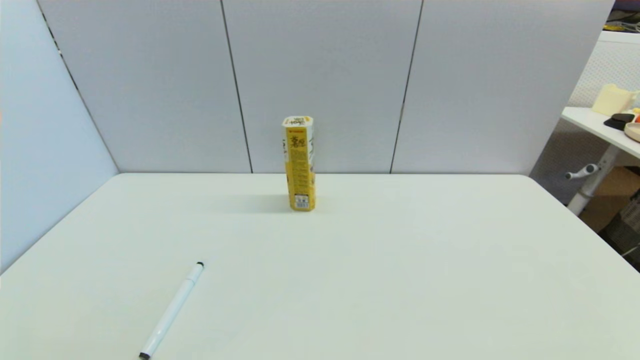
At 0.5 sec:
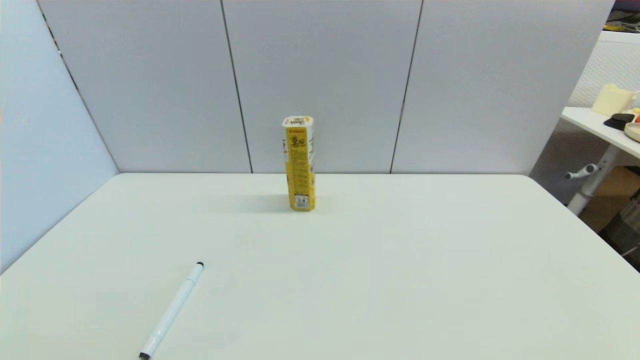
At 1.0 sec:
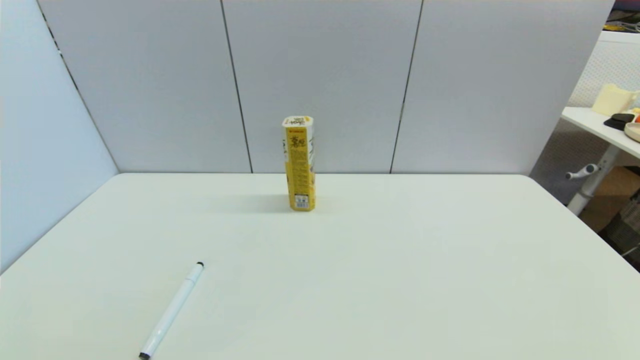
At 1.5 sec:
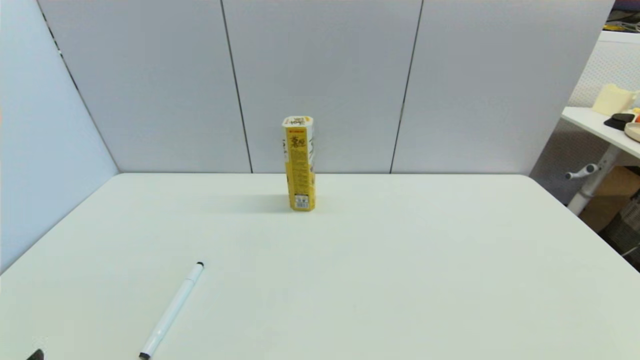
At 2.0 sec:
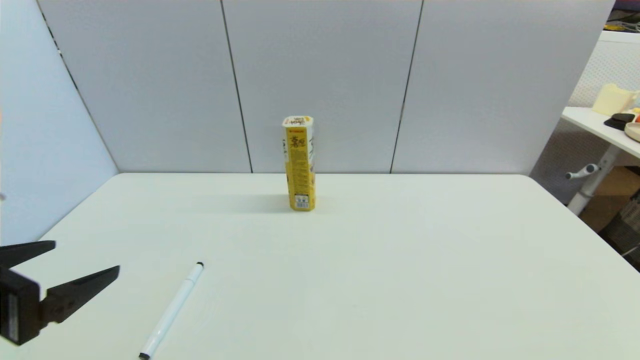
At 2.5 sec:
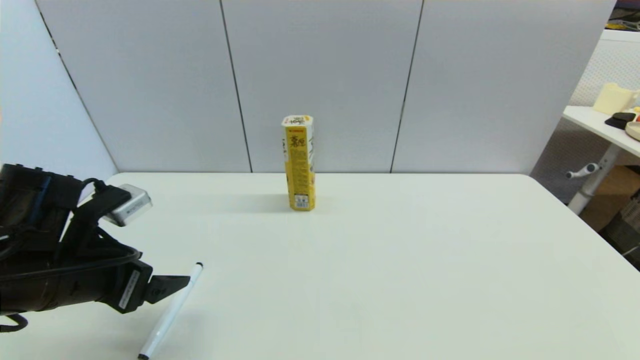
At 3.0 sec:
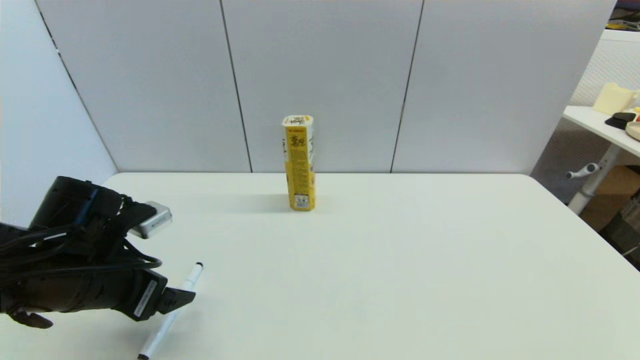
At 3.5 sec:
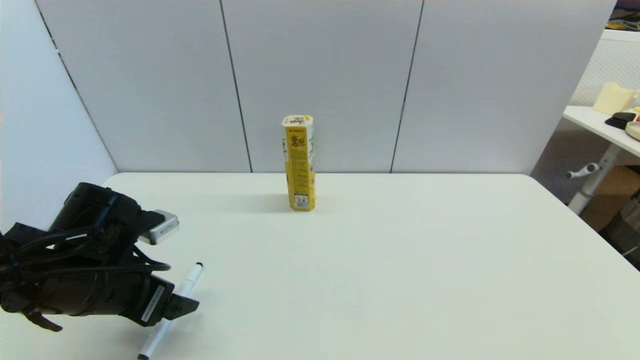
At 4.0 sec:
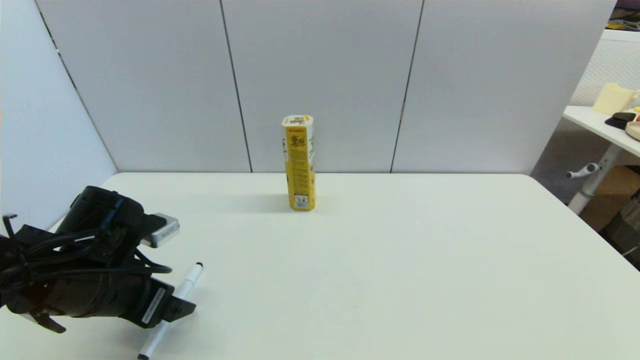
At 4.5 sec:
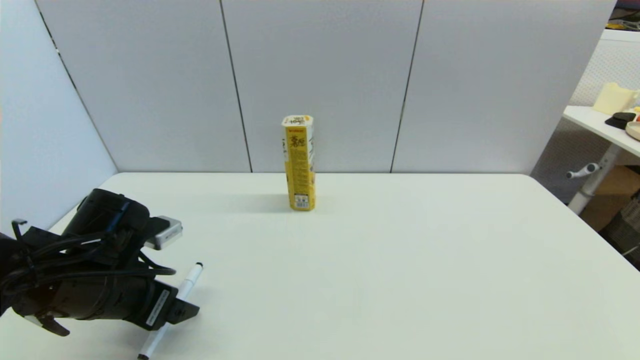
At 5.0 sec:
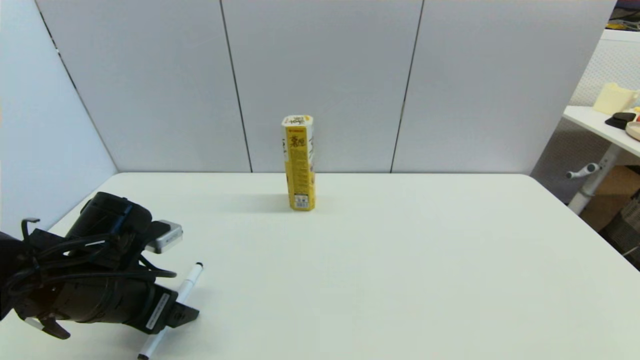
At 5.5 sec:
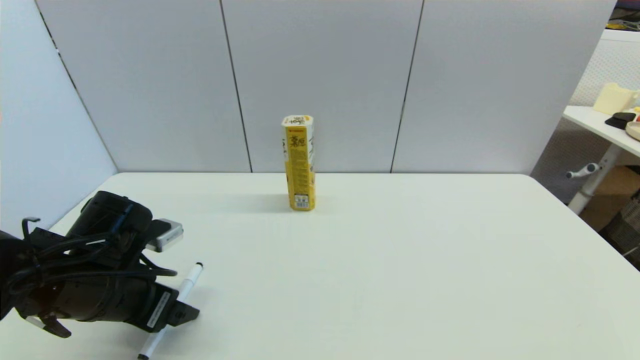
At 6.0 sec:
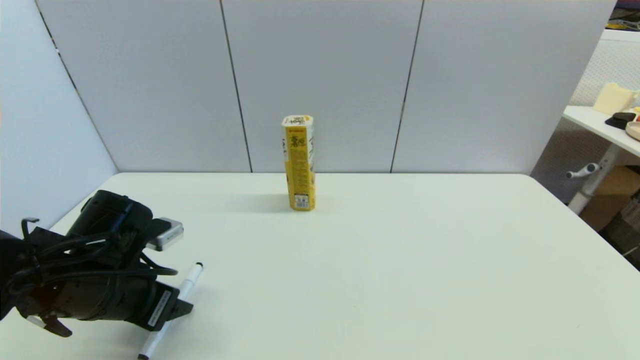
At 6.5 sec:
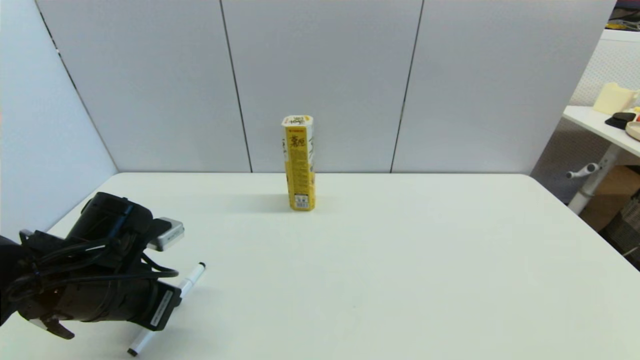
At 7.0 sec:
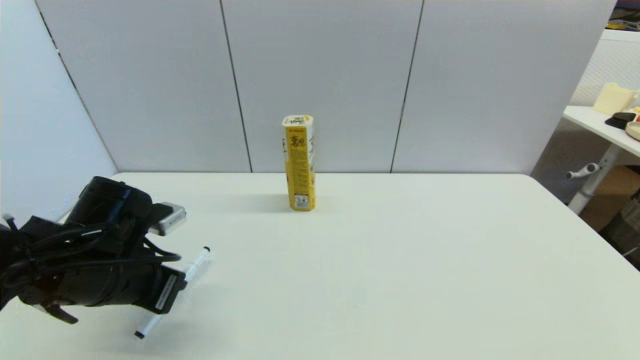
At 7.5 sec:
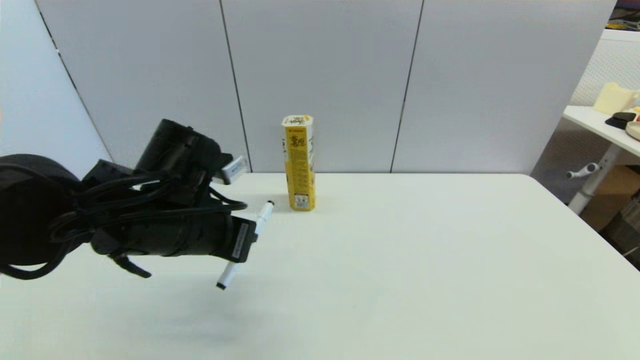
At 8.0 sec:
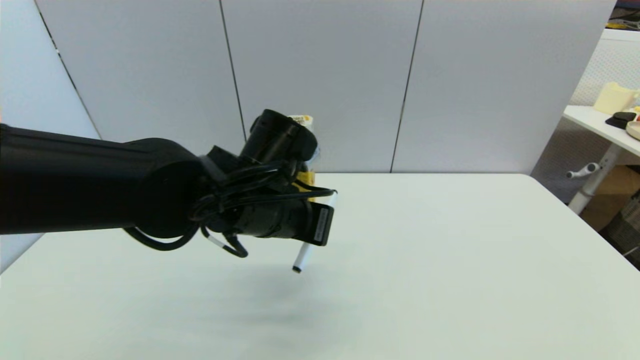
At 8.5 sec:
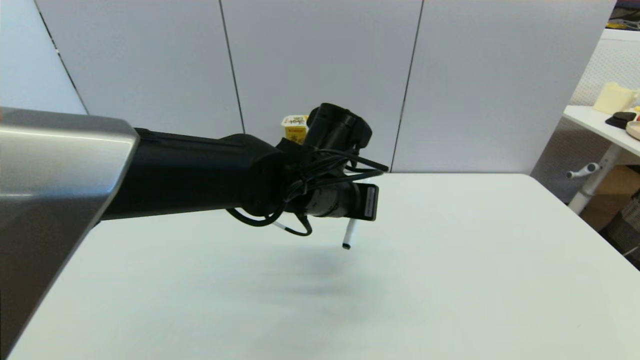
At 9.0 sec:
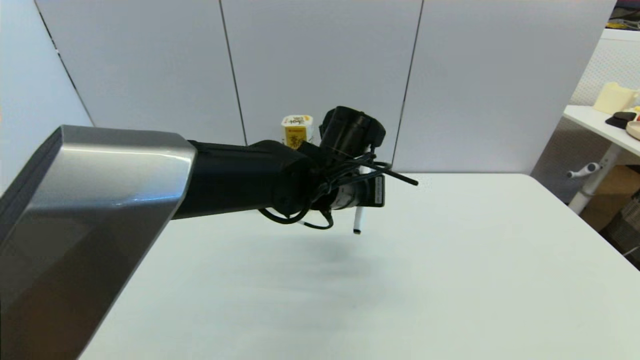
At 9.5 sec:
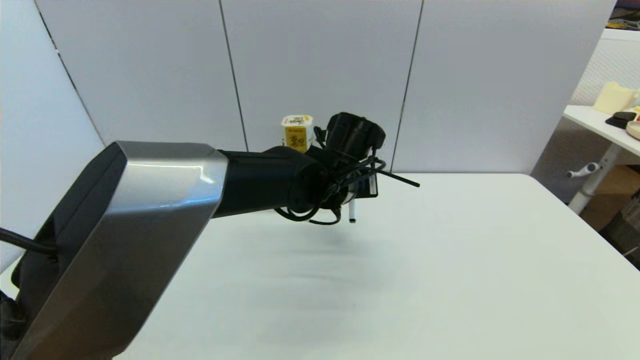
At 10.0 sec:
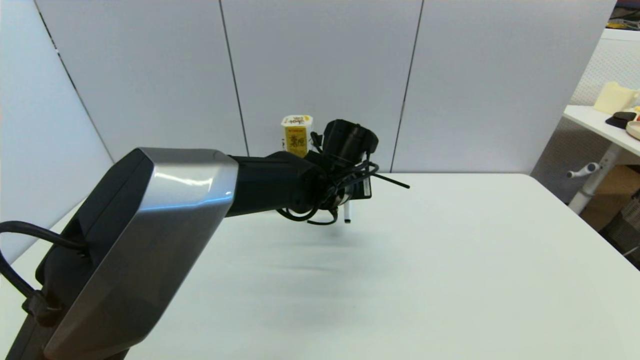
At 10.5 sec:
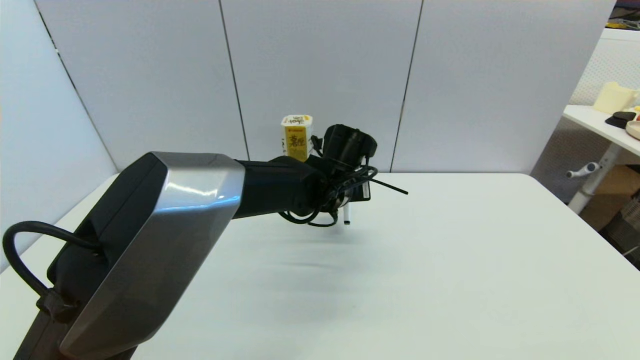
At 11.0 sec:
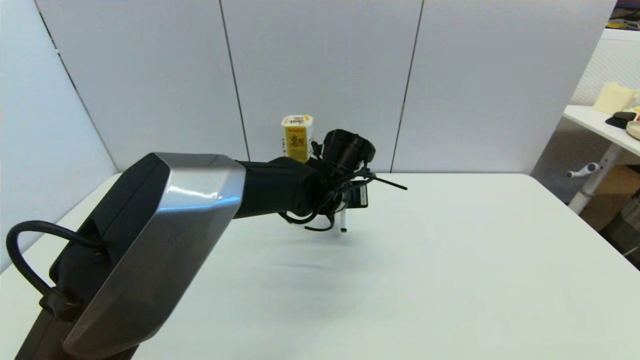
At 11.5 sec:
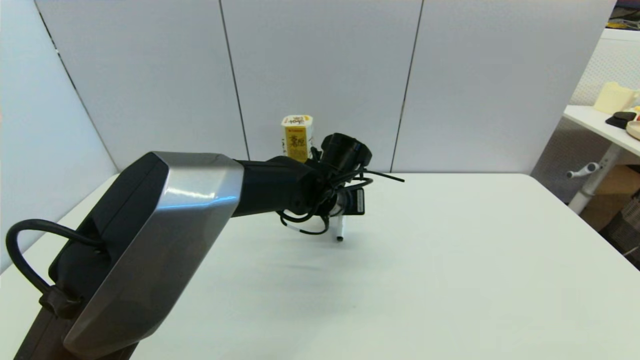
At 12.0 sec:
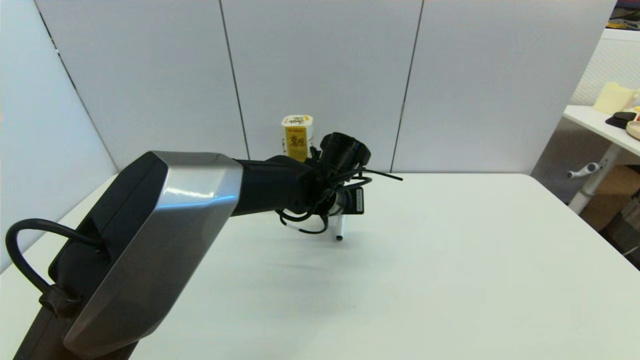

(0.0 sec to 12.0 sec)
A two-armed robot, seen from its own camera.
Task of the whole recording: put the black marker in the designated position.
Step, 2.0 sec - 6.5 sec: Grasp the Marker pen with left gripper.
0.0 sec - 2.0 sec: The left gripper goes about 20 cm upward and forward.
2.0 sec - 4.0 sec: The left gripper goes some 15 cm forward and downward.
4.0 sec - 6.0 sec: The left gripper closes.
6.0 sec - 8.0 sec: The left gripper heads to the right, covering about 20 cm, and closes up.
8.0 sec - 10.0 sec: The left gripper is displaced forward and to the right by roughly 15 cm.
10.0 sec - 12.0 sec: There are only small adjustments of the grippers.

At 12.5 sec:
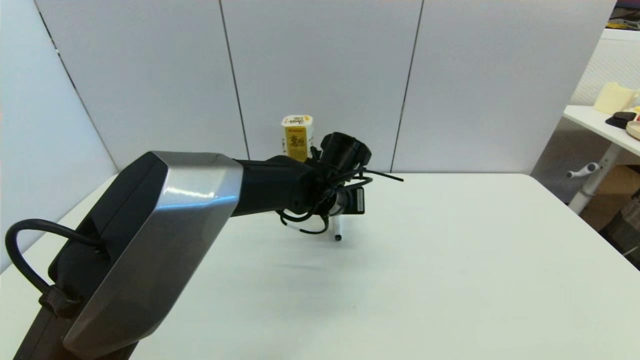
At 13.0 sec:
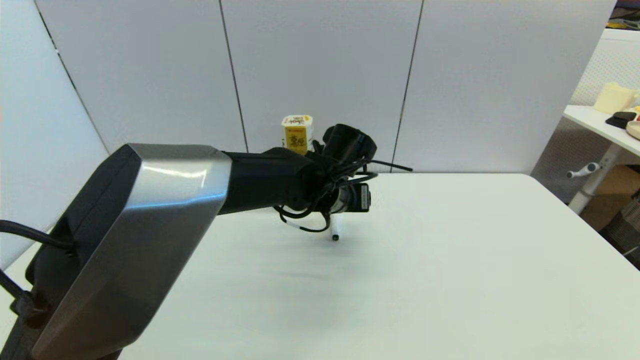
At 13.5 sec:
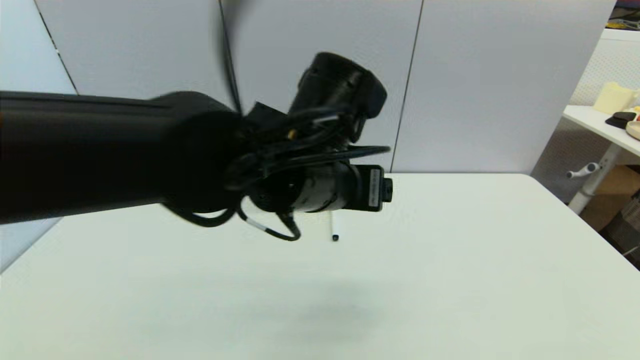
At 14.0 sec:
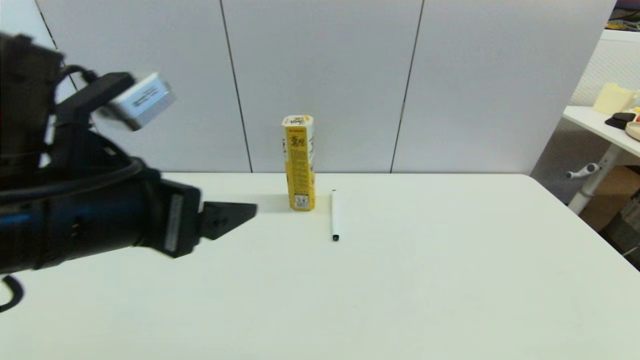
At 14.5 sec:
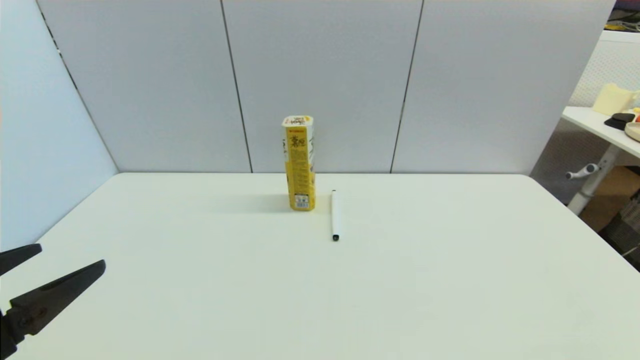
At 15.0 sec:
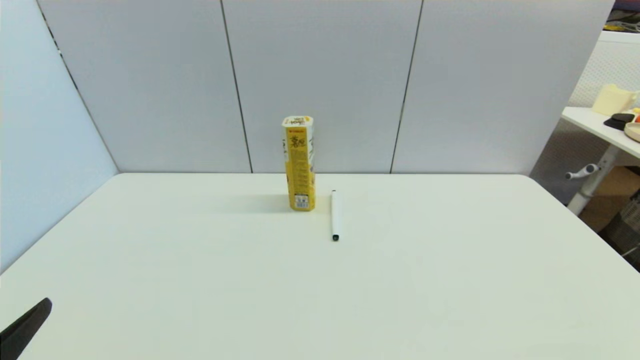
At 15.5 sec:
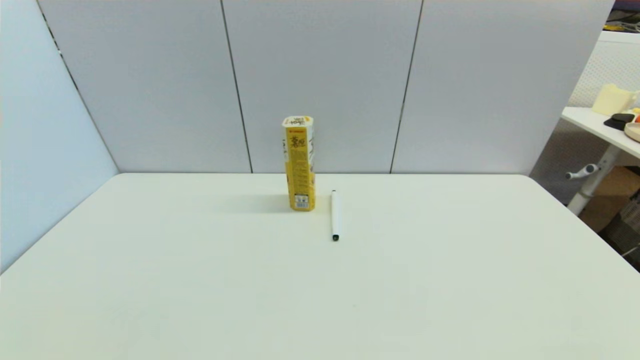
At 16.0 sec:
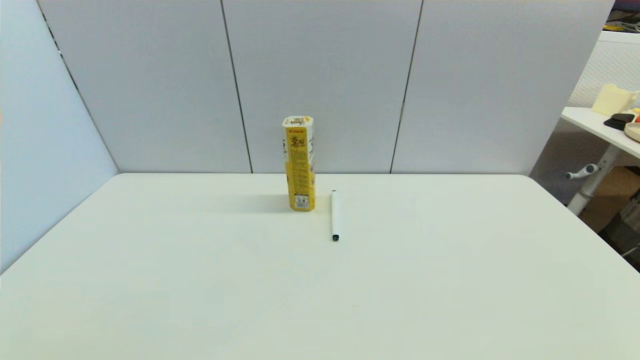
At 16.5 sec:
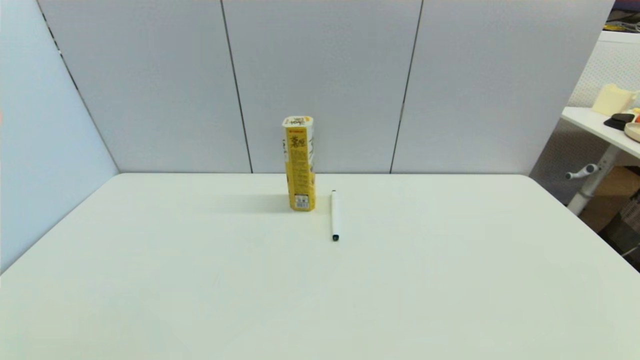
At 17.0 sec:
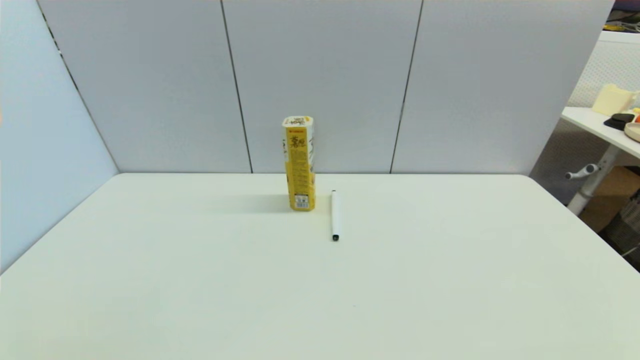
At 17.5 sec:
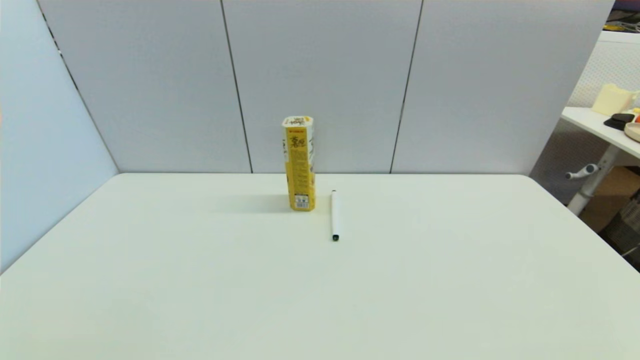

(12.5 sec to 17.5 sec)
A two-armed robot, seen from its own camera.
Task of the whole recording: put the black marker in the designated position.
12.5 sec - 15.0 sec: The left gripper moves backward and to the left, approximately 50 cm, and opens up.
15.0 sec - 17.5 sec: The left gripper travels downward by some 10 cm.

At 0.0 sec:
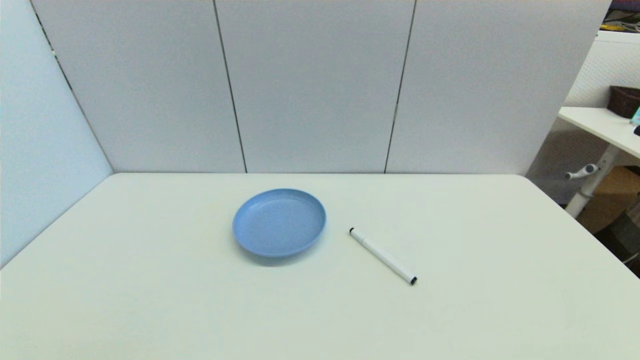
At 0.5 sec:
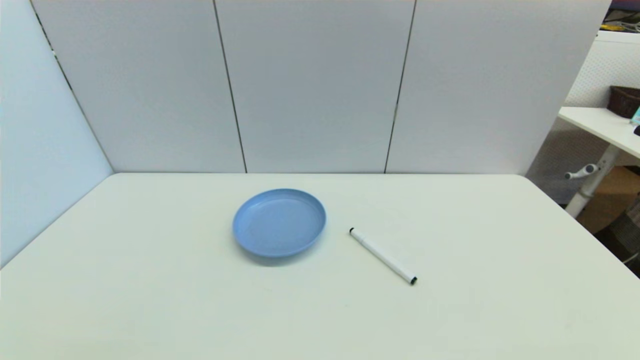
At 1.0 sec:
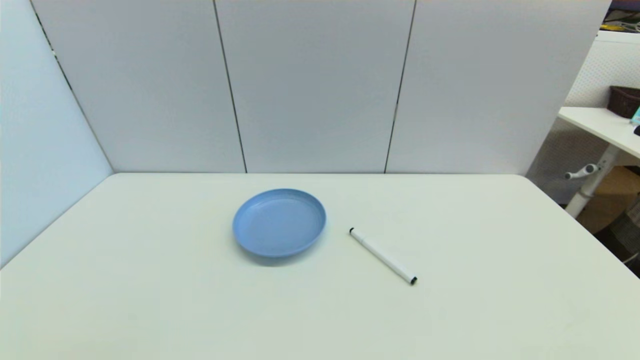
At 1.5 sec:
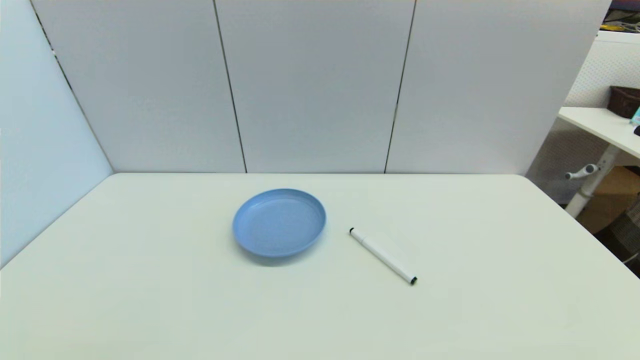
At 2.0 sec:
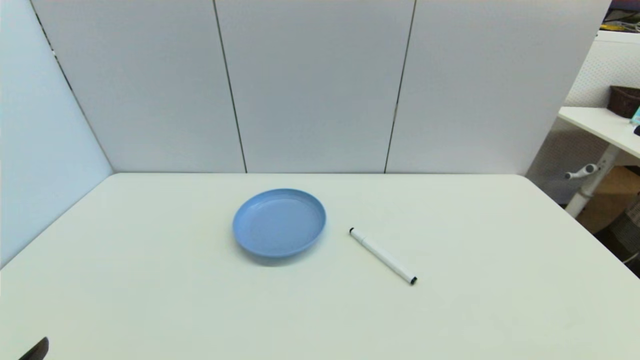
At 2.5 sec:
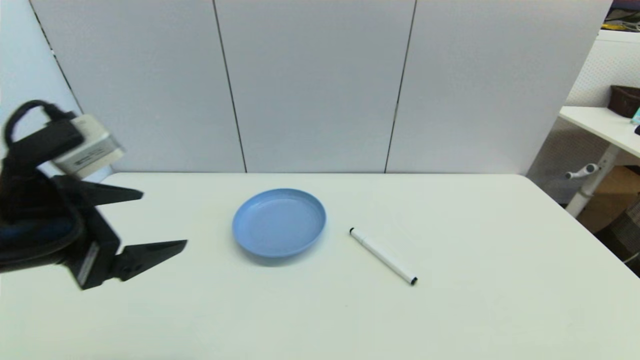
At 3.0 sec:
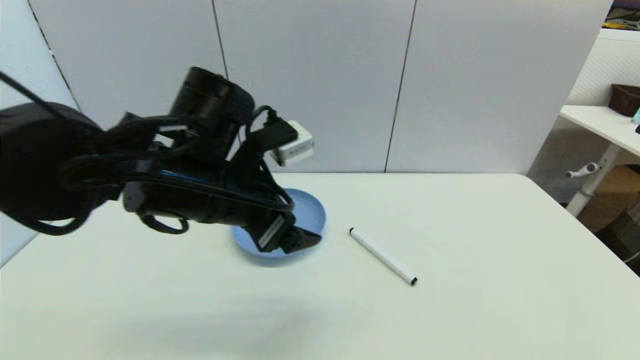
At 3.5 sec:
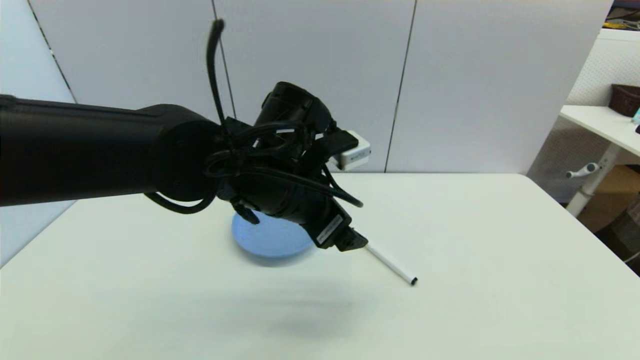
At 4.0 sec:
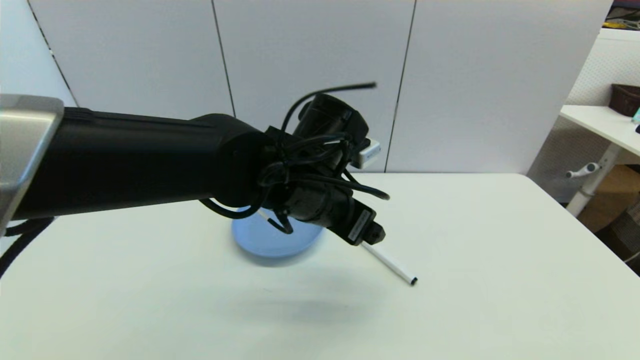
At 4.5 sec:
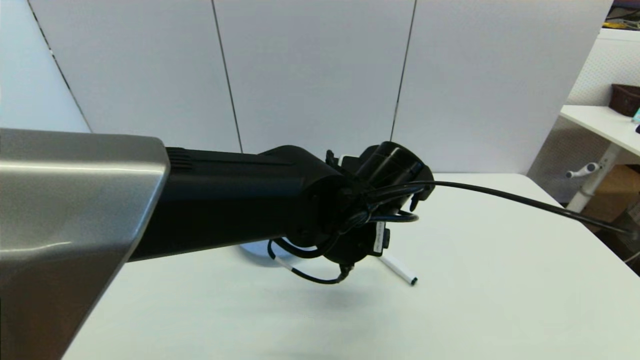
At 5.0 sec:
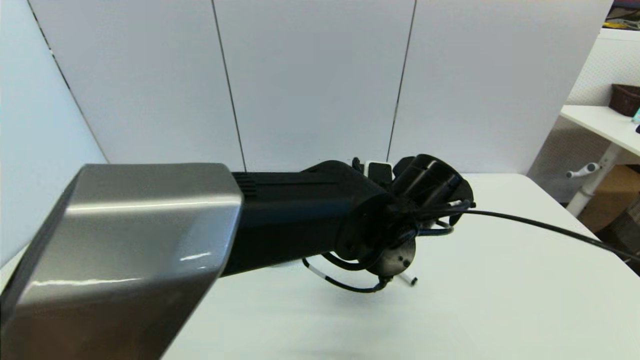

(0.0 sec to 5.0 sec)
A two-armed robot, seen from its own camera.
Task of the whole recording: put the black marker in the designated position.
0.0 sec - 2.5 sec: The left gripper shifts approximately 25 cm forward, upward and to the right.
2.5 sec - 5.0 sec: The left gripper travels to the right by roughly 30 cm.
